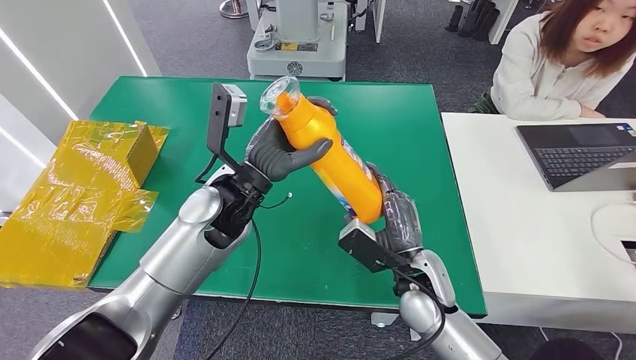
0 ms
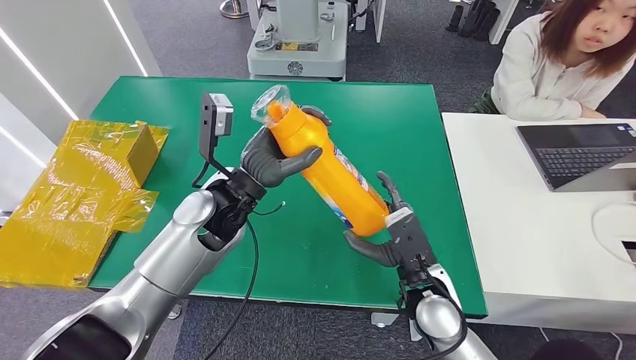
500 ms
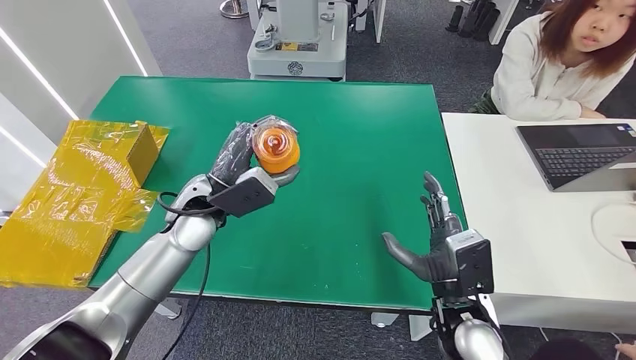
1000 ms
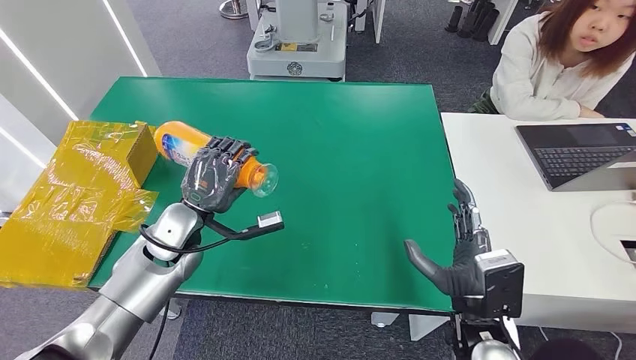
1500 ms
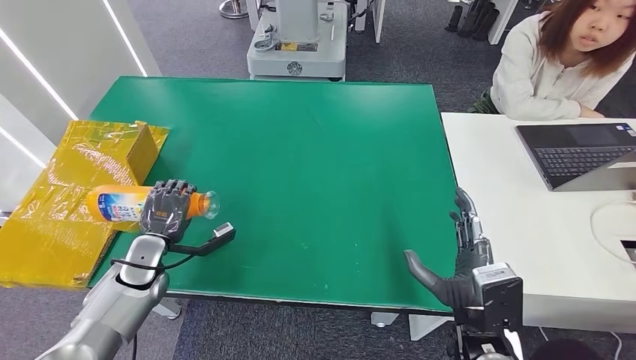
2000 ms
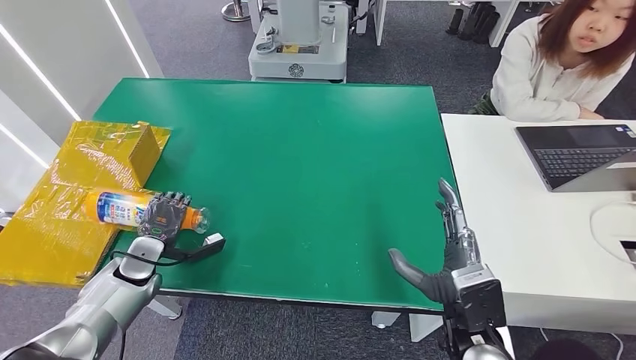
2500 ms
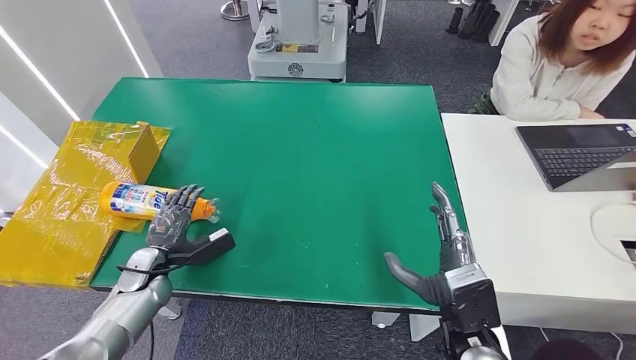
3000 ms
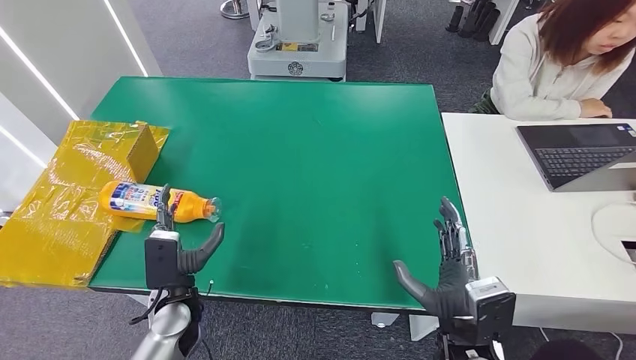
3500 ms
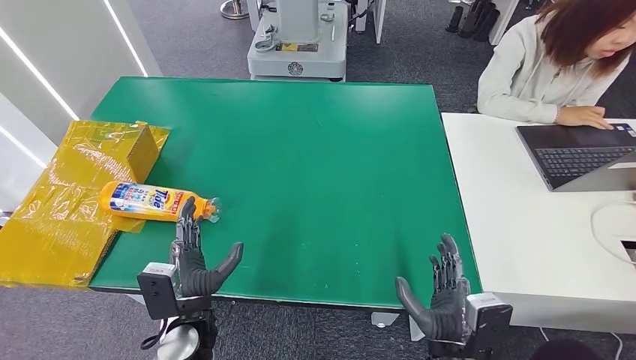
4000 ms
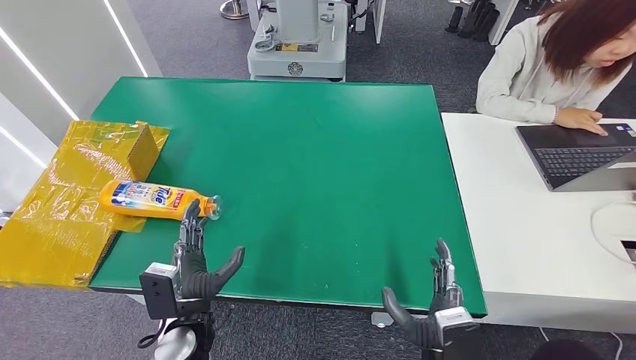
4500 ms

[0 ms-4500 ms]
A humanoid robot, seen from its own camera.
Step, 0 ms to 4500 ms: Turn the bottle to the front side.
0 ms to 2000 ms: The right hand moves backward and to the right, some 10 cm; the left hand goes some 30 cm to the left and downward.
2000 ms to 4500 ms: The right hand is displaced downward, backward and to the left by roughly 10 cm. The left hand shifts roughly 20 cm to the right and backward.

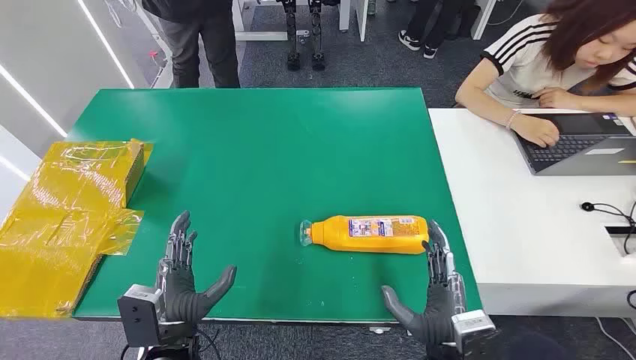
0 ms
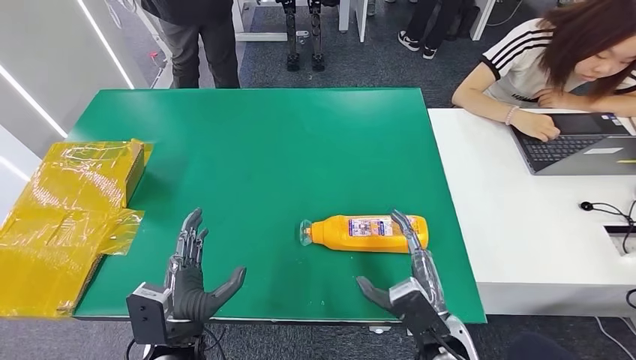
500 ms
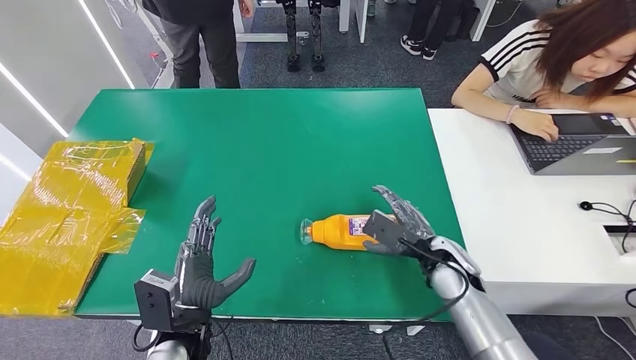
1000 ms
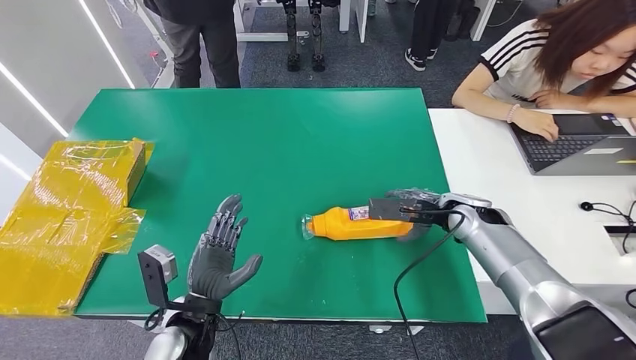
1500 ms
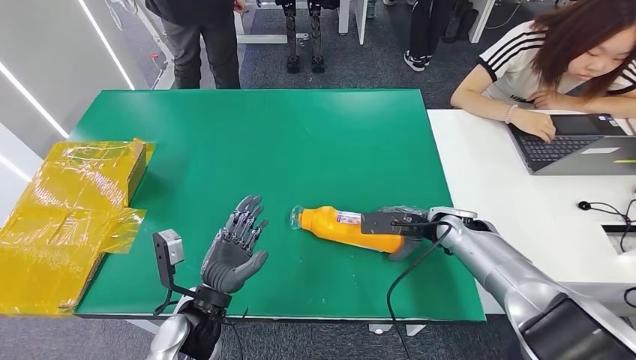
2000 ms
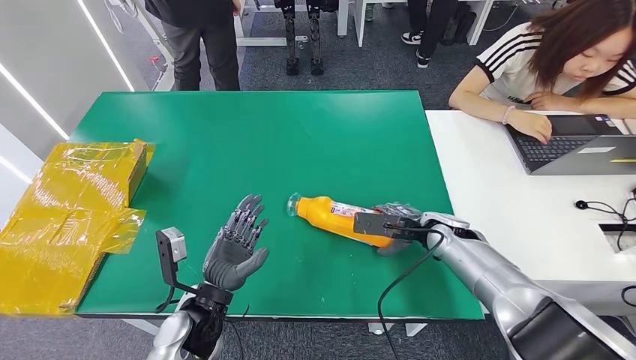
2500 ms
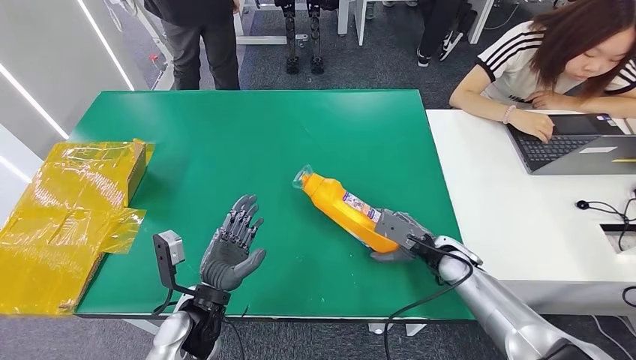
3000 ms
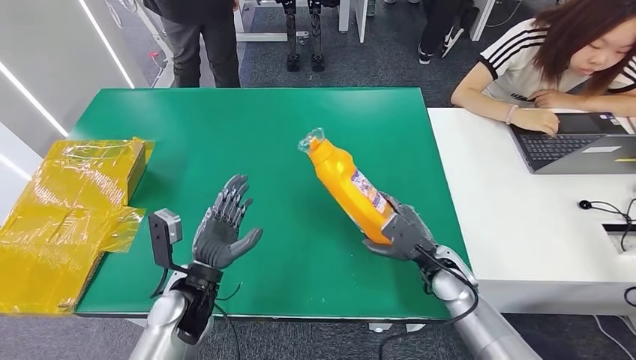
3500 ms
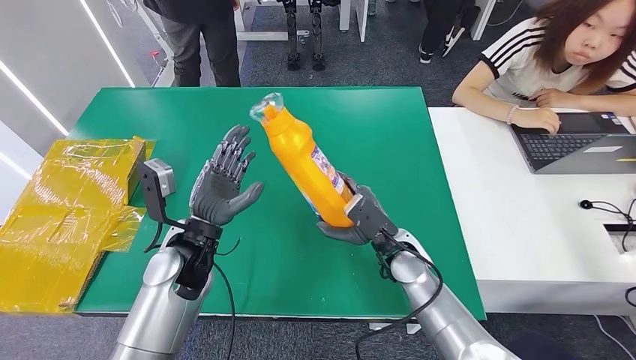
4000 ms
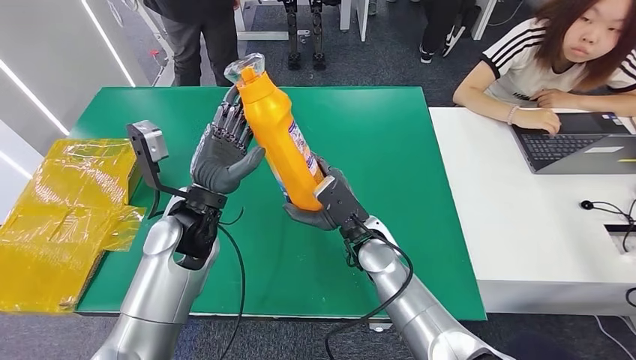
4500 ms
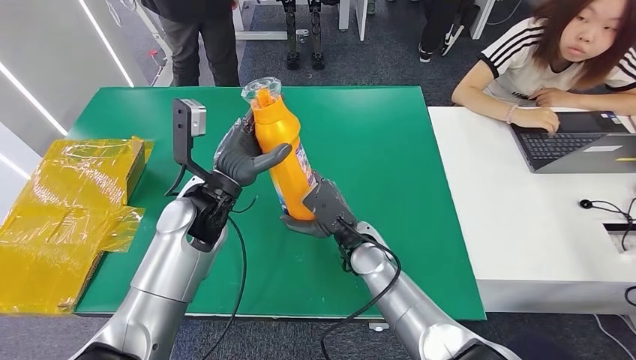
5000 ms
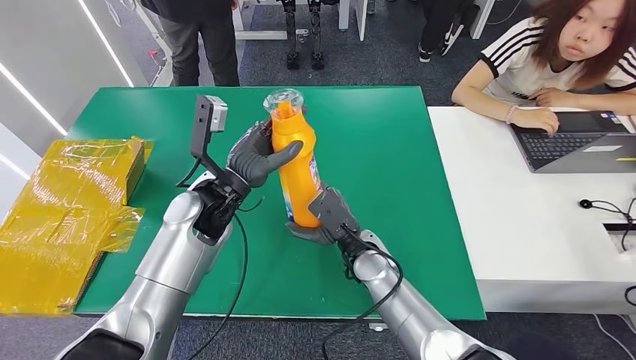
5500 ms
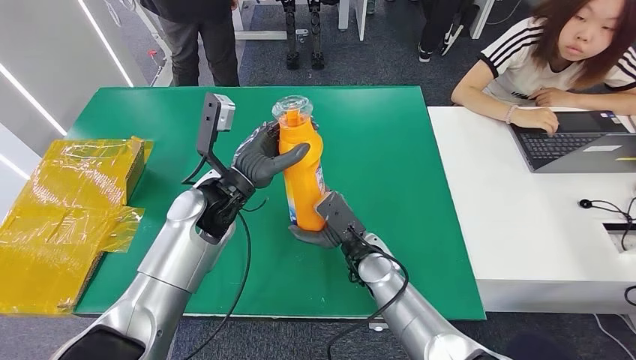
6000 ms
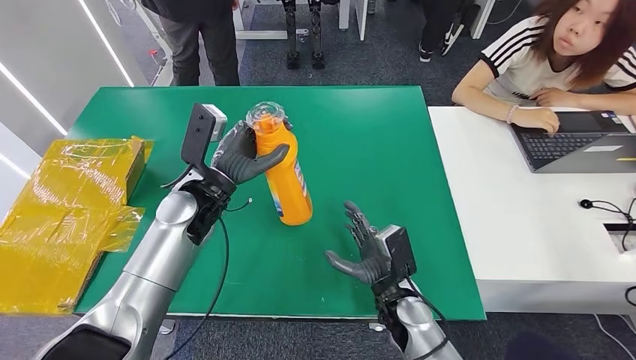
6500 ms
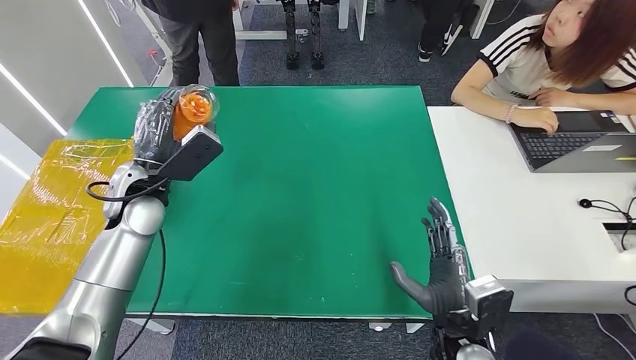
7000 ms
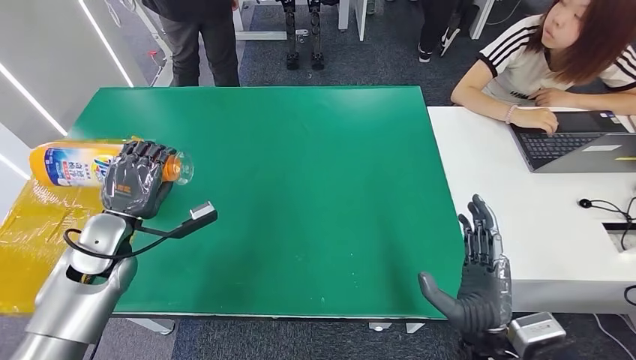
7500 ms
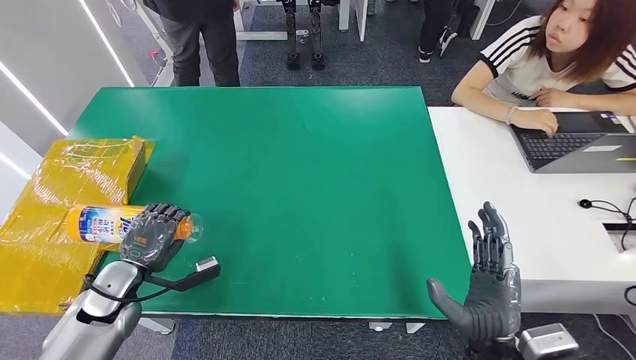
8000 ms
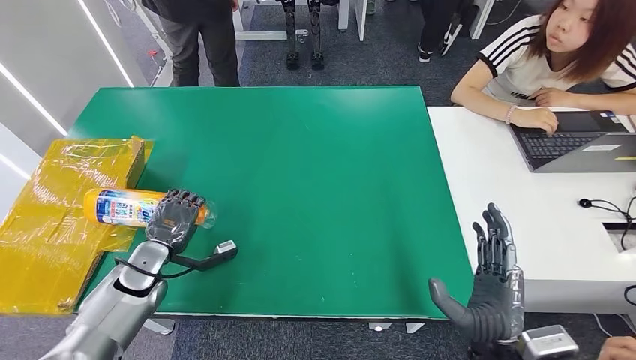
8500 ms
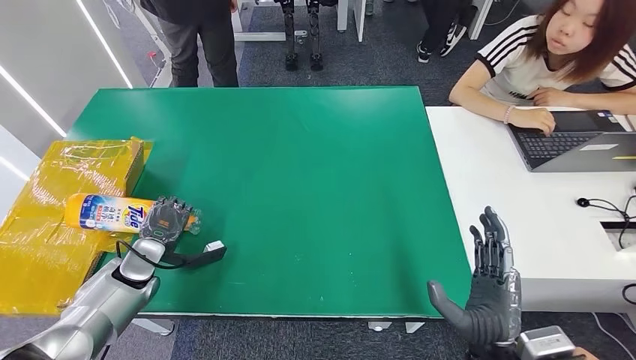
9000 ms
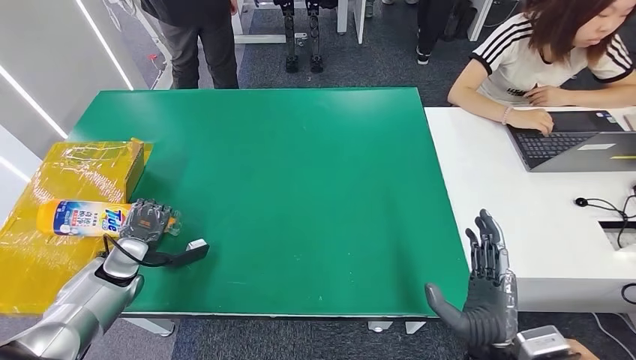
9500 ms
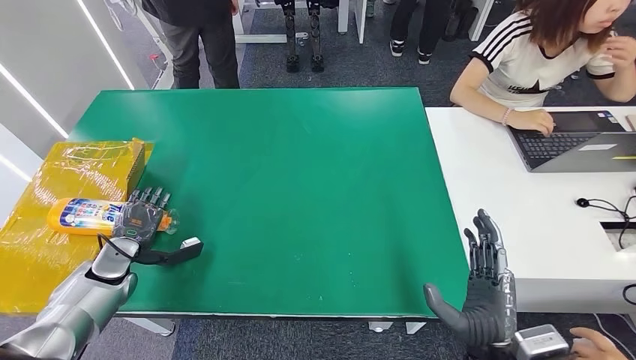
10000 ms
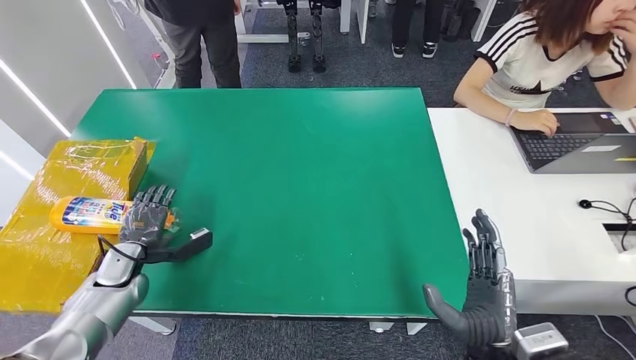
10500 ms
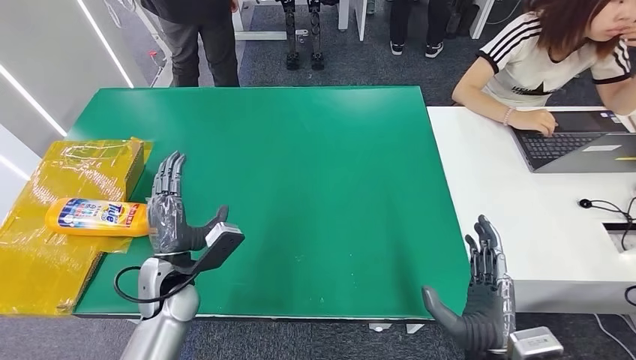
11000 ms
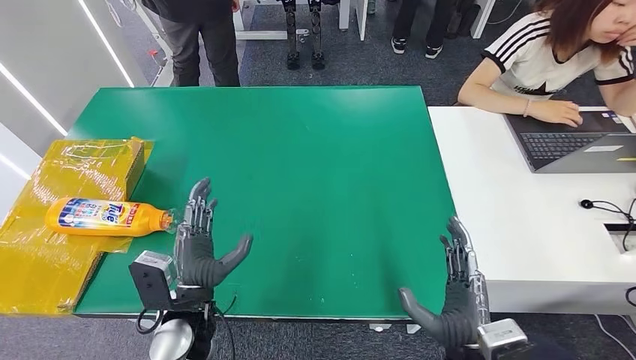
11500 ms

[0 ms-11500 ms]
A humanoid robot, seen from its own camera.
Step, 0 ms to 4000 ms: Pick up the bottle from the table.
Step, 4500 ms to 11500 ms: Turn the bottle to the front side.
